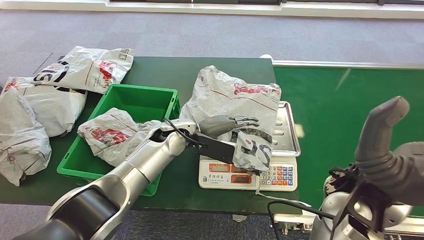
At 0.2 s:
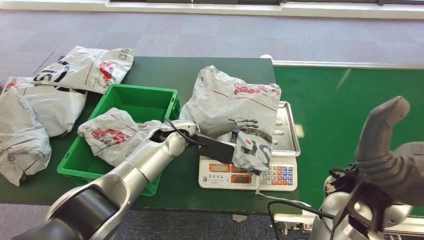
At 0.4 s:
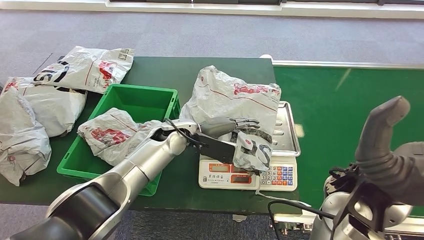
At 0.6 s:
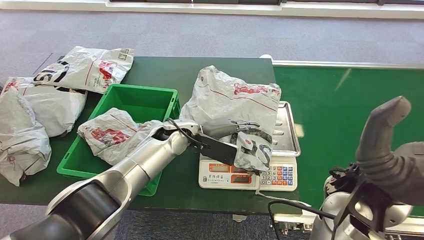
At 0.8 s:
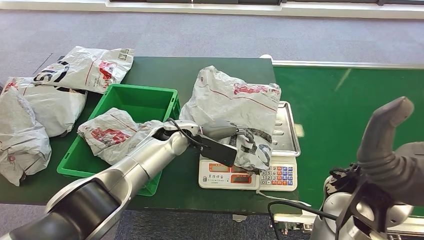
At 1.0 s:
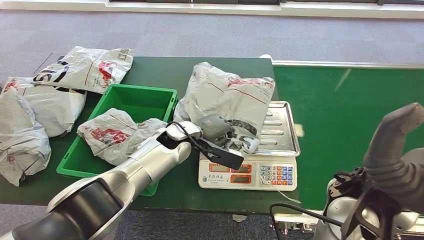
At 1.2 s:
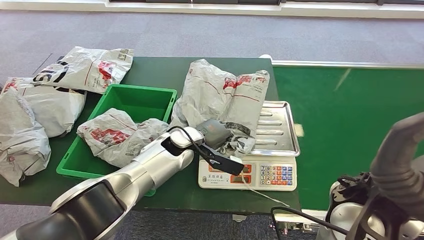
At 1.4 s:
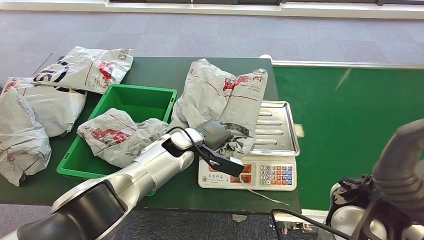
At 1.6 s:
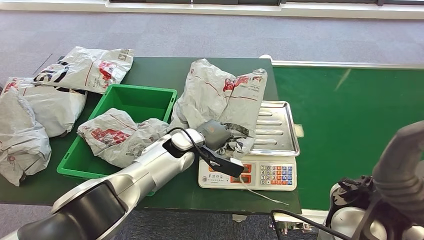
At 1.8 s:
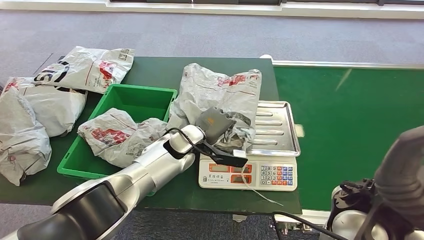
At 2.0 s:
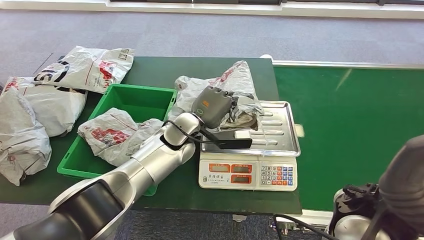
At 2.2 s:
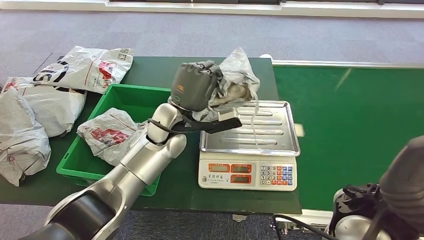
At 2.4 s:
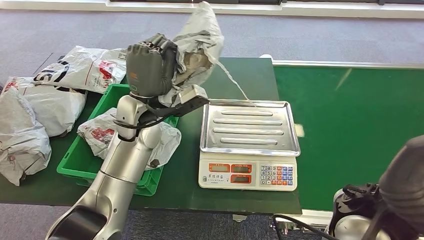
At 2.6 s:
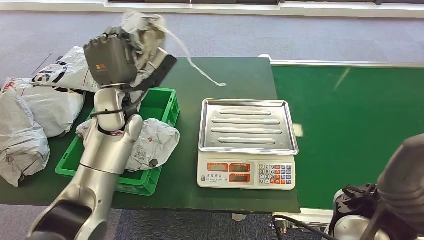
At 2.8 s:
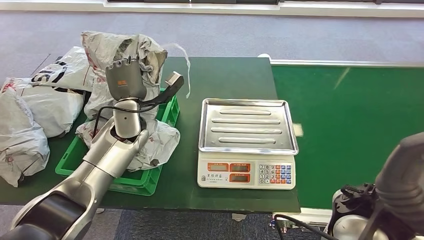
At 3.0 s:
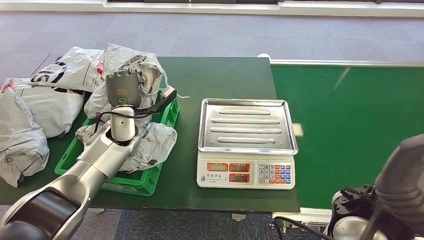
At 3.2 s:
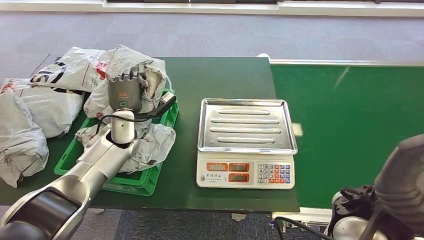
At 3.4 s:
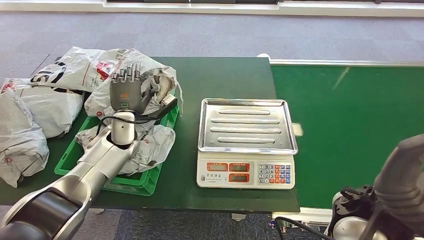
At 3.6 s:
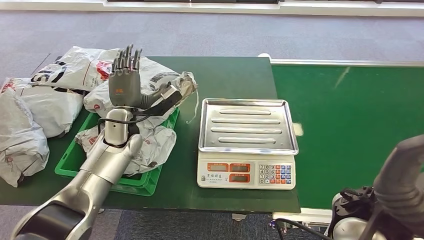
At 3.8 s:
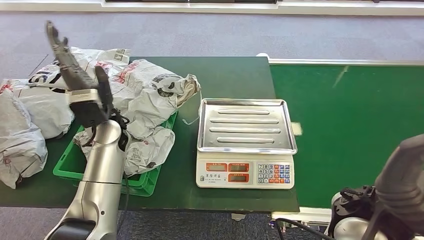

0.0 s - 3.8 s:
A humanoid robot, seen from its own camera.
Step, 0.4 s - 2.4 s: Pick up the package from the inbound machine.
Step, 2.6 s - 3.8 s: Place the package into the parcel locker.
